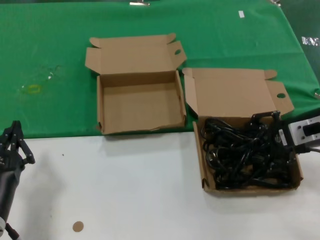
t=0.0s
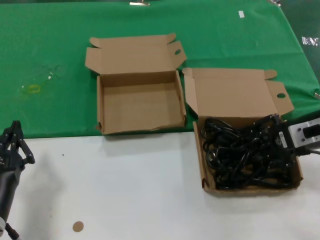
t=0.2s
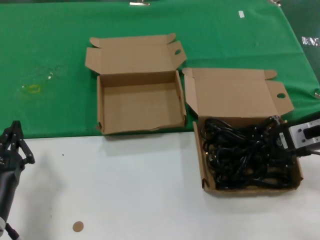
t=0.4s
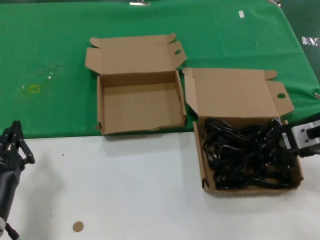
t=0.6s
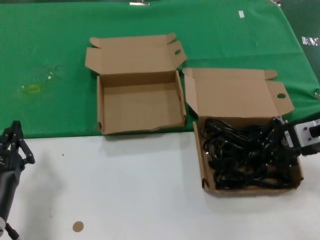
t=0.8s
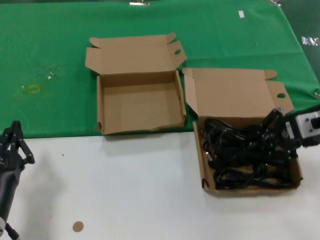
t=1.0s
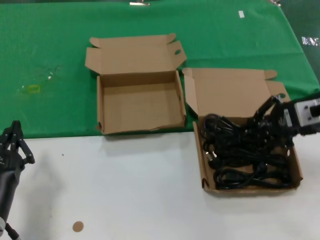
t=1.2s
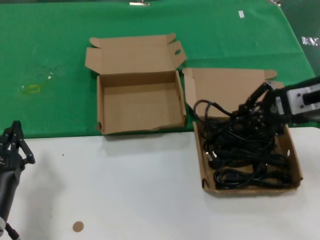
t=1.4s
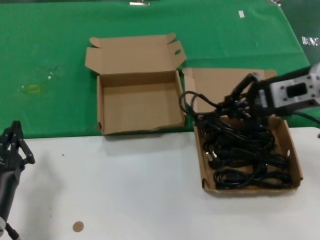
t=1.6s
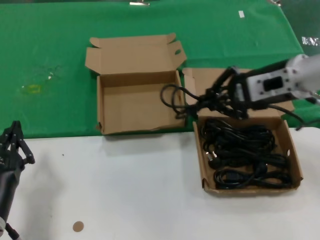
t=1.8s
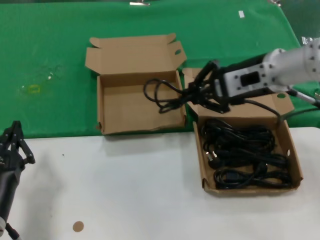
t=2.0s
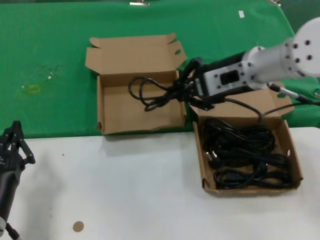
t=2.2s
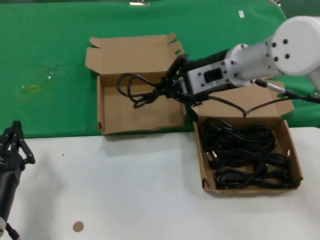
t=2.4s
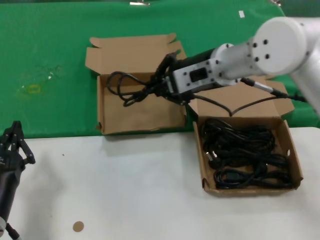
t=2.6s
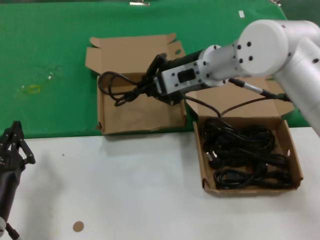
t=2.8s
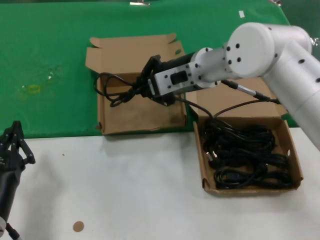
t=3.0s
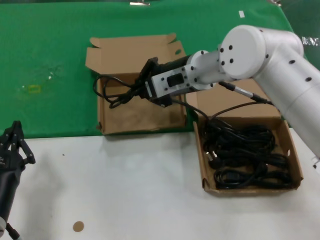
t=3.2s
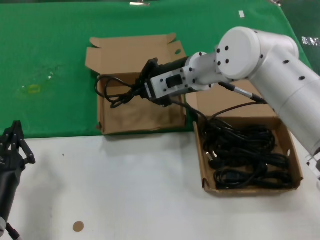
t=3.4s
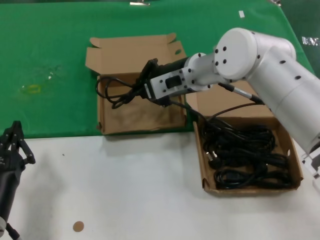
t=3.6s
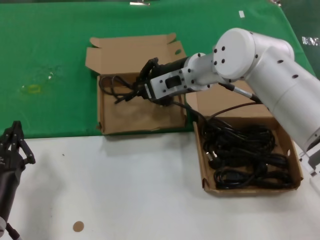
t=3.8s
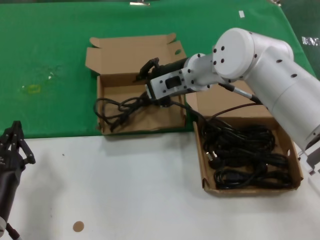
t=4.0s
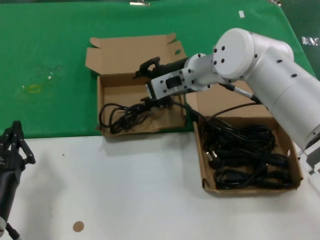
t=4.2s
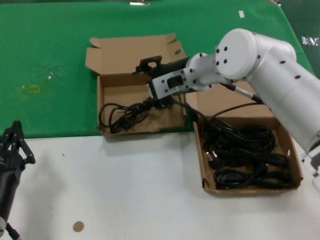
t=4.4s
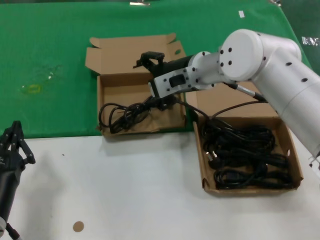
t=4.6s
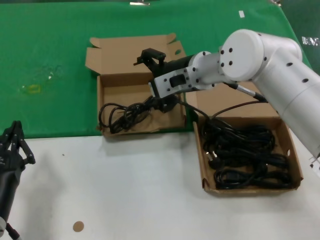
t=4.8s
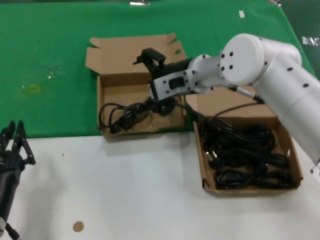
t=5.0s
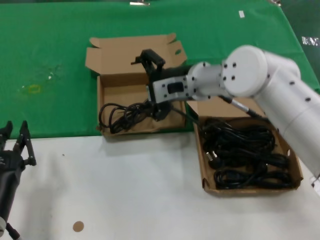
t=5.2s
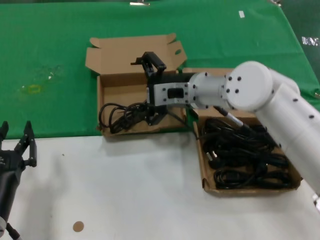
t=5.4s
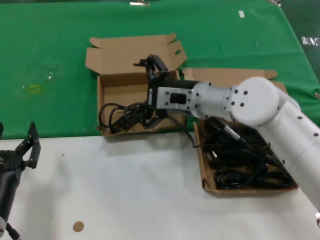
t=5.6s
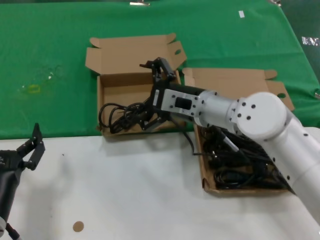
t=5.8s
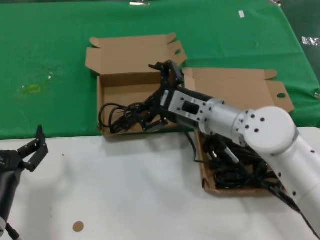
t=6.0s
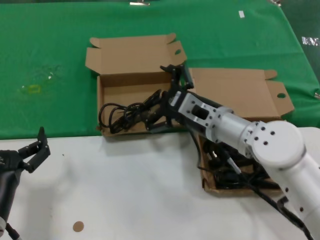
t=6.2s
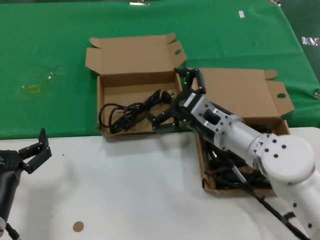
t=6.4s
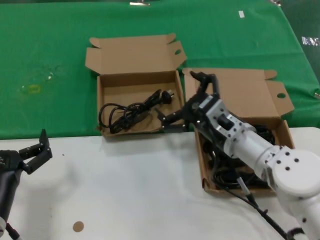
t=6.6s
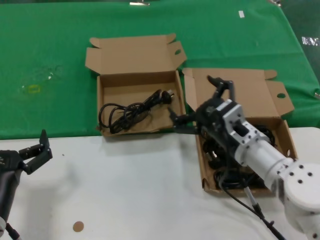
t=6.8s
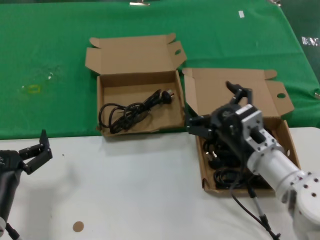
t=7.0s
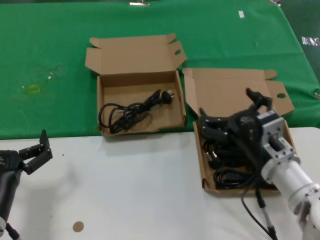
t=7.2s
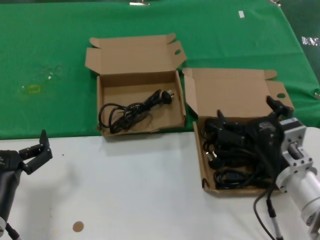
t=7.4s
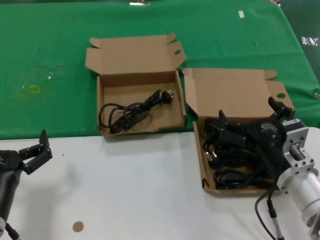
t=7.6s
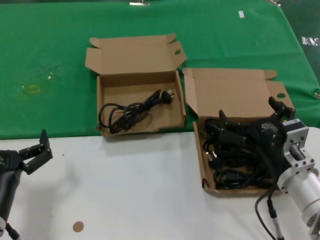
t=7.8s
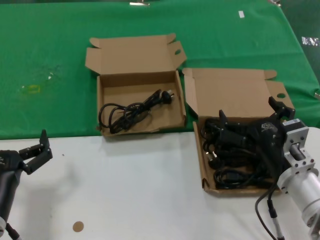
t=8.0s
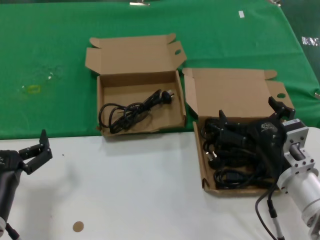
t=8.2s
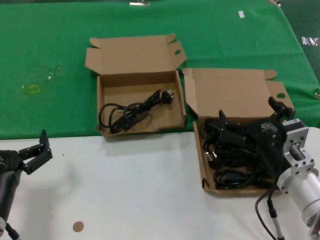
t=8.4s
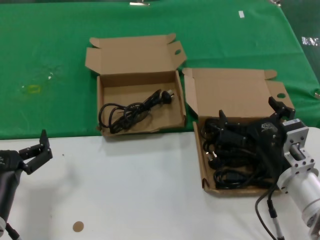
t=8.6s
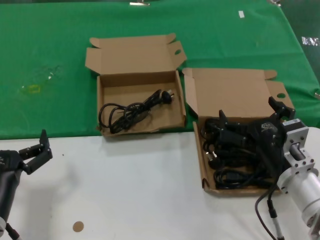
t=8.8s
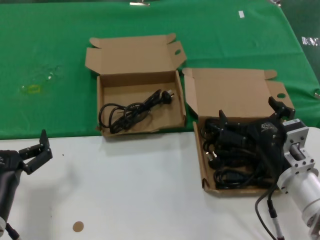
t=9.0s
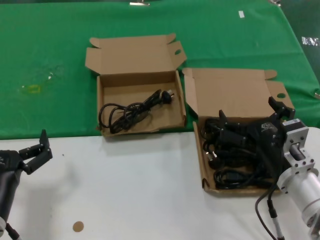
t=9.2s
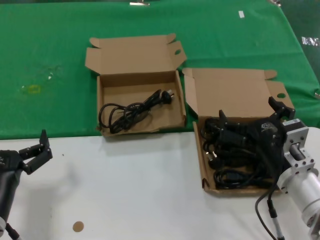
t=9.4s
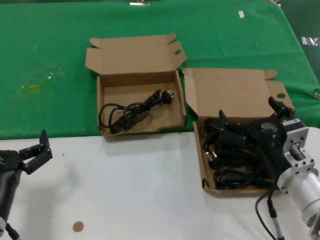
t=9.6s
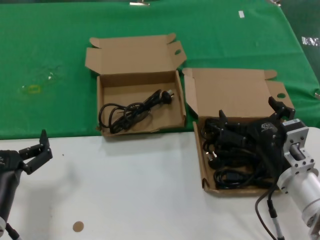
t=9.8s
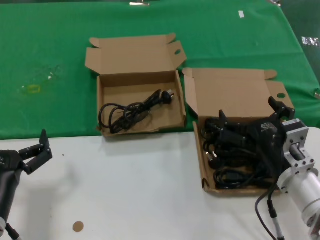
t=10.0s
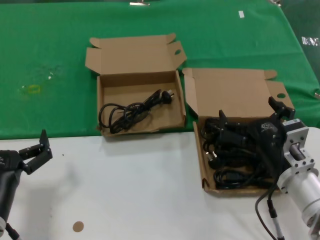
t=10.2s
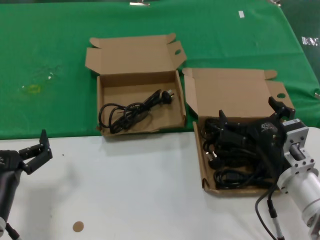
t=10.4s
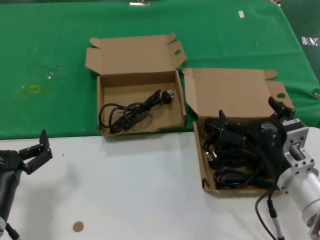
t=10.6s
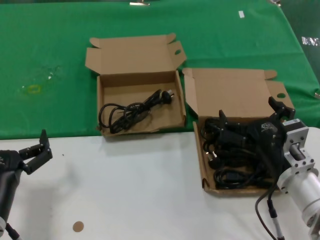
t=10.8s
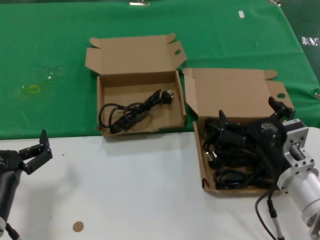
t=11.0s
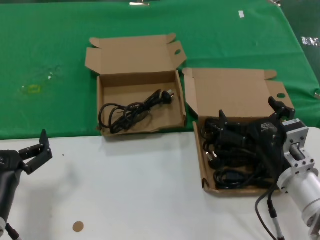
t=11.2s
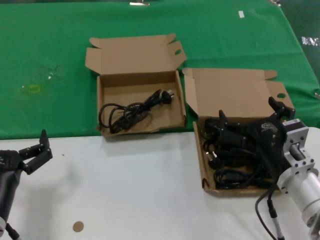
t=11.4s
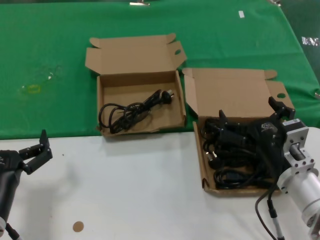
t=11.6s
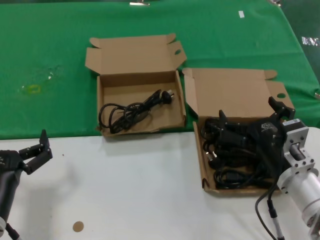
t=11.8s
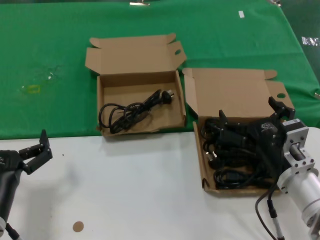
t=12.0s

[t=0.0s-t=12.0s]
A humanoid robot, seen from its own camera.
Task of the whole recording: take the parts from the box containing them and put them into an empty box.
Step, t=0.6s to t=3.8s: Place the data cable in the another box.
t=0.0s to t=1.6s: The right hand goes roughly 10 cm upward.
t=1.6s to t=3.0s: The right hand shifts some 20 cm to the left and forward.
t=3.0s to t=4.4s: The hands stay close to where they were, moving slightly.
t=4.4s to t=6.0s: The right hand moves downward and backward, about 10 cm.
t=6.0s to t=7.6s: The right hand moves backward, to the right and downward, some 20 cm.
t=7.6s to t=12.0s: Neither hand changes place.

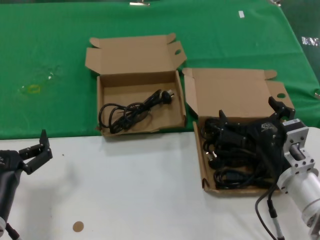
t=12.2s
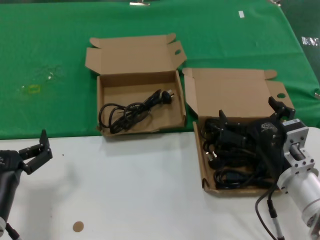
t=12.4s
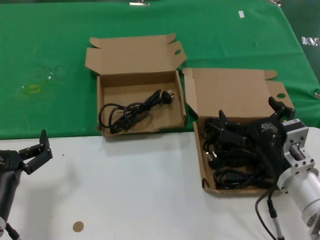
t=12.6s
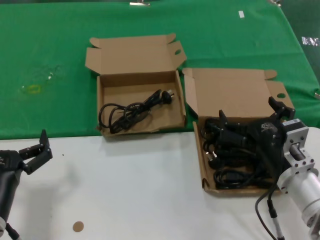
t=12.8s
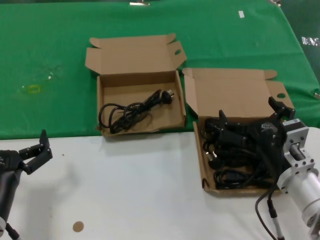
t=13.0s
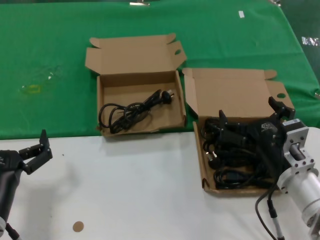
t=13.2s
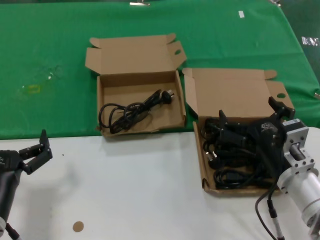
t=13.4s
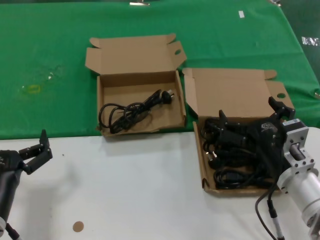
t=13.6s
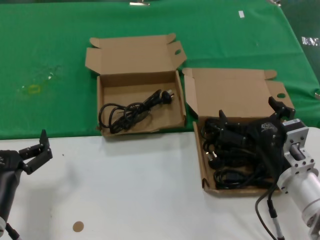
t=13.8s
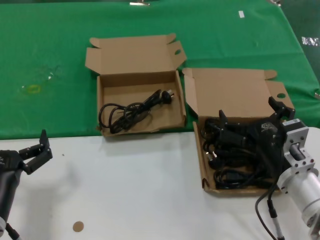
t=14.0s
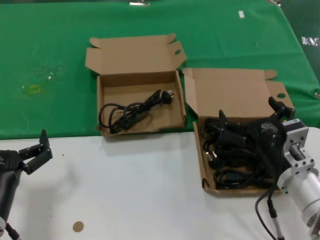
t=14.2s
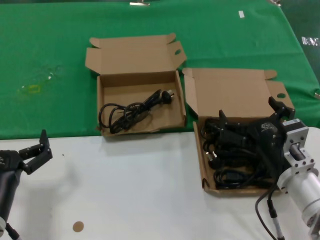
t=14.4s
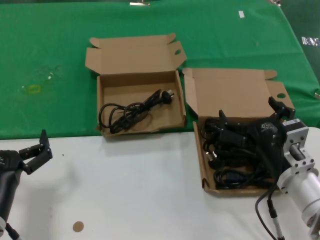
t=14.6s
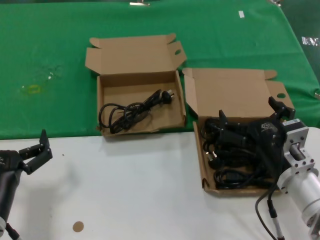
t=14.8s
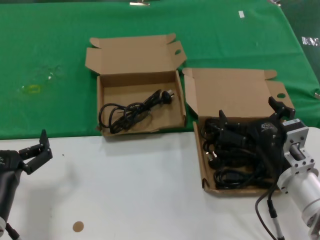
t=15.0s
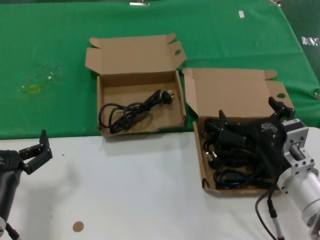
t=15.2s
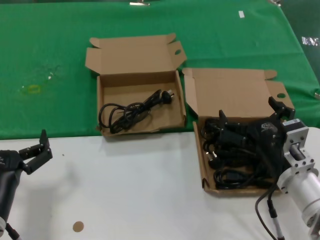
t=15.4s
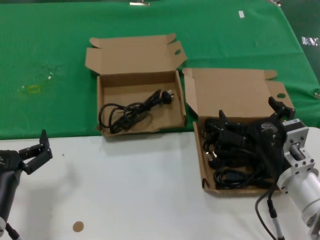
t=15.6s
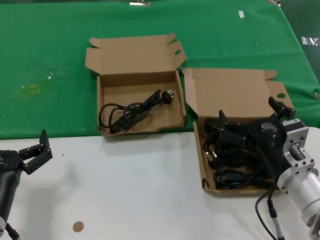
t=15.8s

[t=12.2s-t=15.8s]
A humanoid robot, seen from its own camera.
Task of the whole recording: take the parts from the box containing them and put them into an empty box.
t=12.2s to t=15.8s: Both hands stay put.

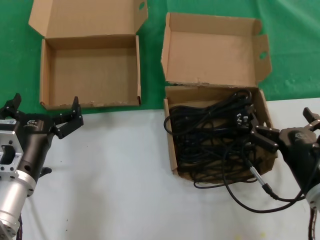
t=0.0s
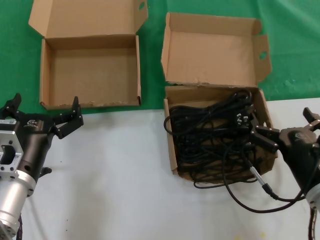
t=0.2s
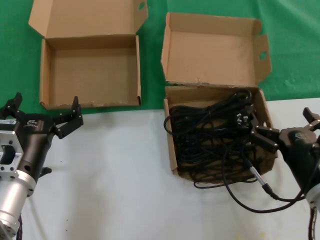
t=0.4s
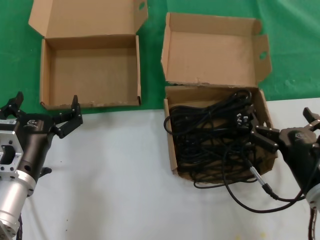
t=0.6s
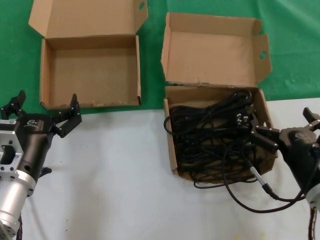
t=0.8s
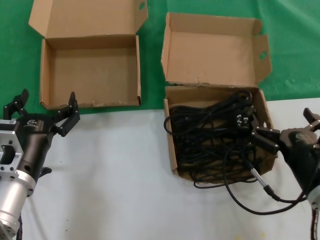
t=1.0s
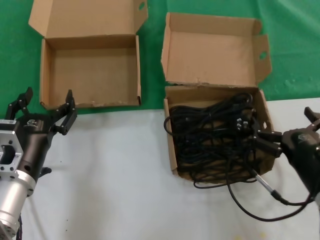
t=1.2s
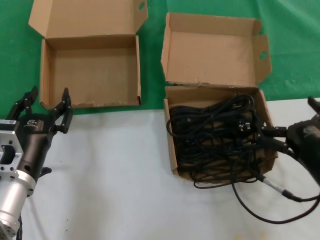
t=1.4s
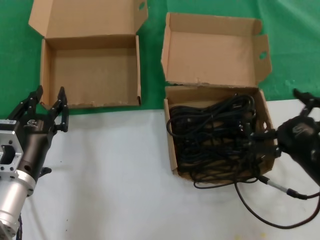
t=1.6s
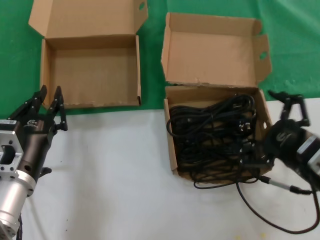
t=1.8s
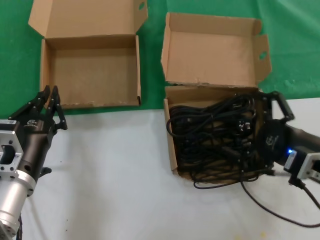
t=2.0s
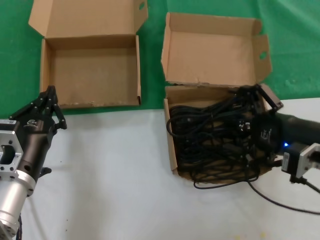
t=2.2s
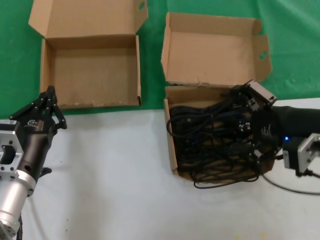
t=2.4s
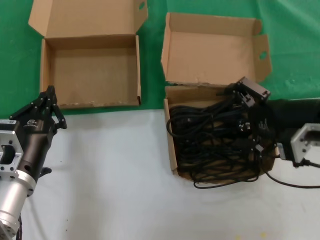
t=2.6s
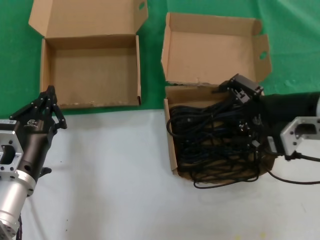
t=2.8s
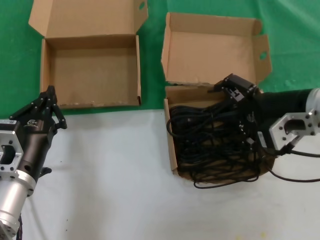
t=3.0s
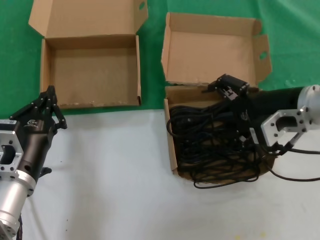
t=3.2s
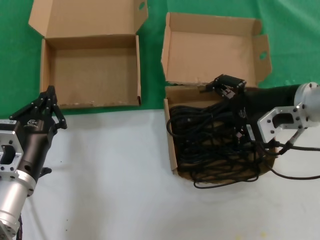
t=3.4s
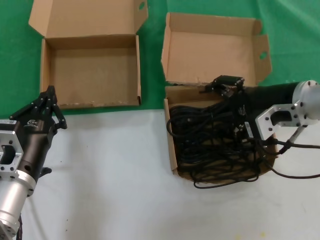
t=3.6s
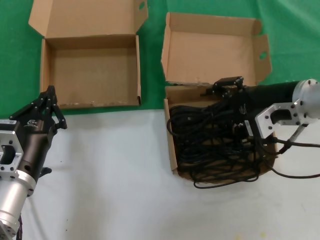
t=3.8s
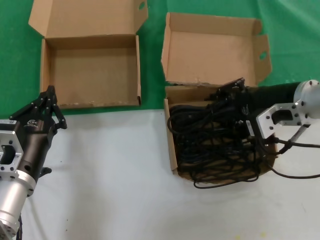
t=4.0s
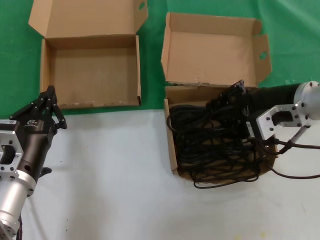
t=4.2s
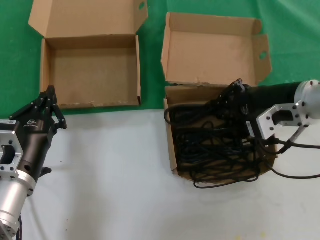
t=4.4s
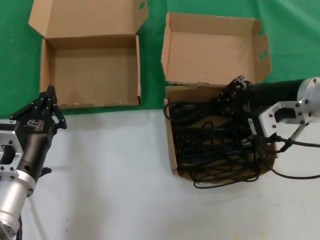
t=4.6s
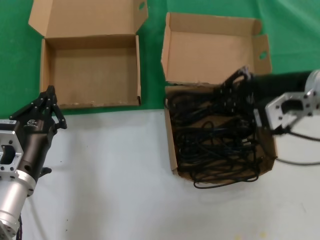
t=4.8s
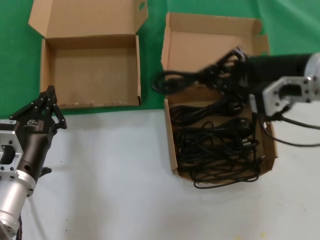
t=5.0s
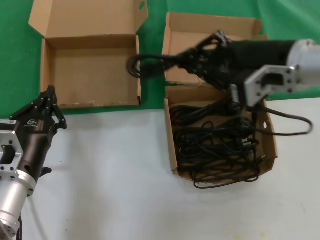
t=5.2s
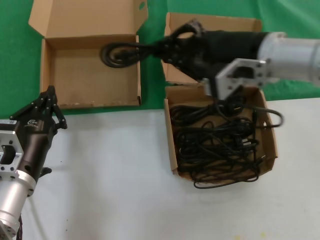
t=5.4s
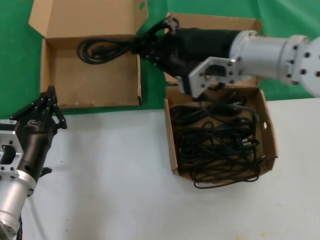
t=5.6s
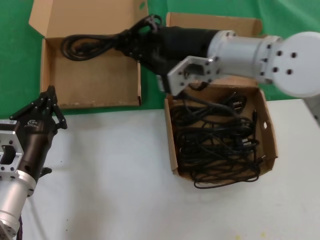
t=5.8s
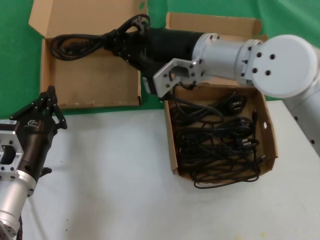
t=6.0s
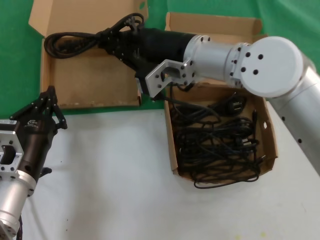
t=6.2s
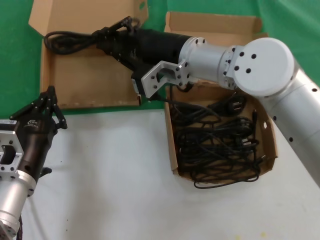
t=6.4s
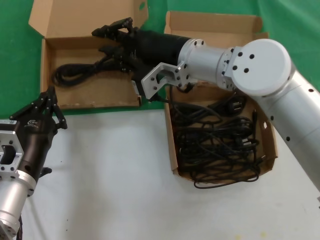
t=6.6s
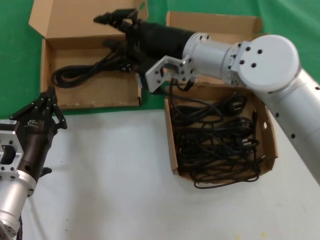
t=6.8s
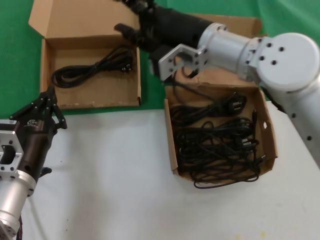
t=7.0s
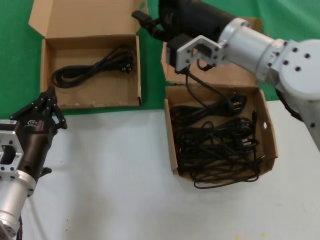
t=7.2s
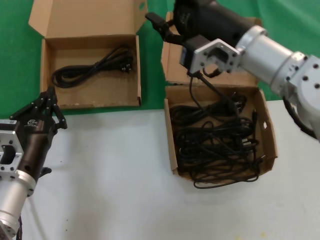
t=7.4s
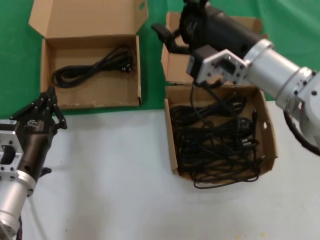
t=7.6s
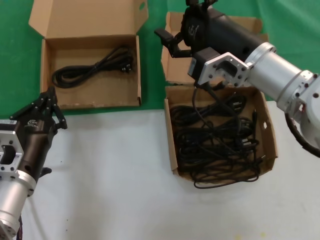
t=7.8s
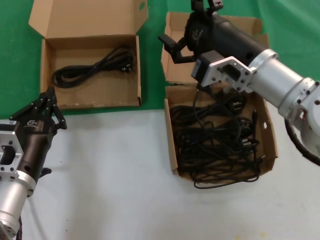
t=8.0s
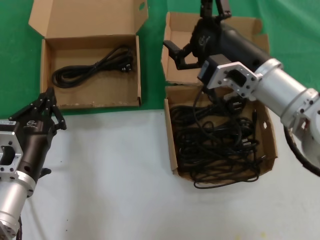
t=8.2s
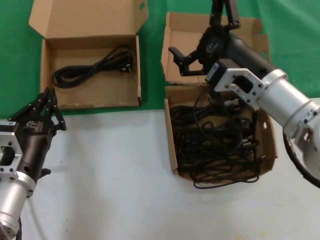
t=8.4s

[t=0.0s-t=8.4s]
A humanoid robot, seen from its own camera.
Task of the whole recording: take the parts from the box containing them and put them into an empty box.
Step, t=0.0s to t=4.4s: Grasp the data cable.
Step, t=4.6s to t=6.8s: Place the data cable in the another box.
t=0.0s to t=1.4s: The hands move only a little.
t=1.4s to t=2.8s: The right hand goes roughly 20 cm upward and forward.
t=2.8s to t=4.2s: There are only small adjustments of the hands.
t=4.2s to t=5.6s: The right hand travels to the left and upward by roughly 10 cm.
t=5.6s to t=7.0s: The right hand moves approximately 5 cm.
t=7.0s to t=8.4s: The right hand heads to the right, backward and downward, covering some 10 cm.
